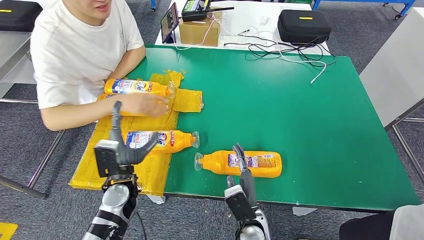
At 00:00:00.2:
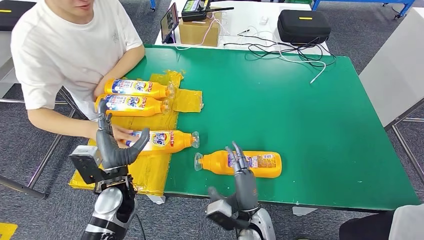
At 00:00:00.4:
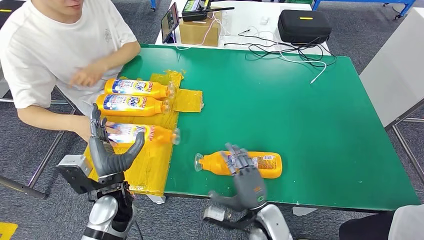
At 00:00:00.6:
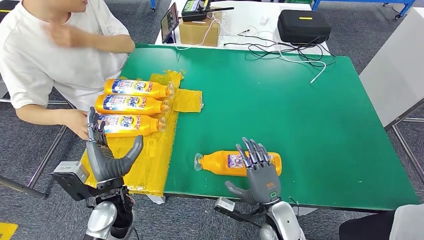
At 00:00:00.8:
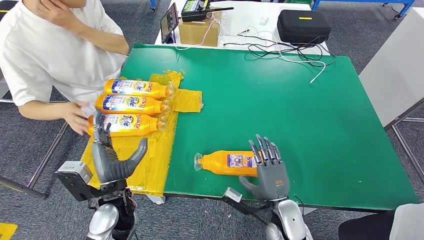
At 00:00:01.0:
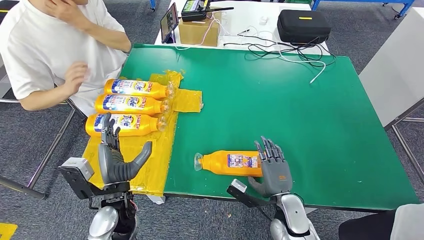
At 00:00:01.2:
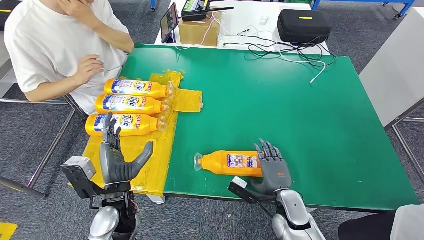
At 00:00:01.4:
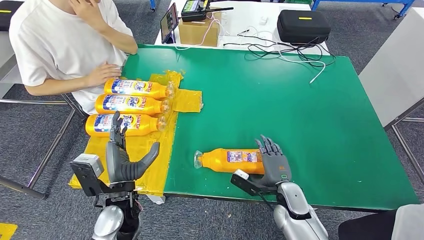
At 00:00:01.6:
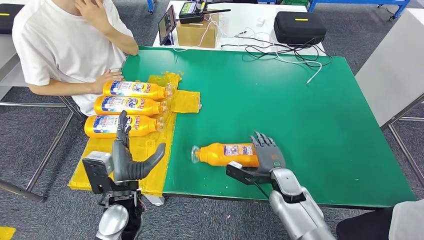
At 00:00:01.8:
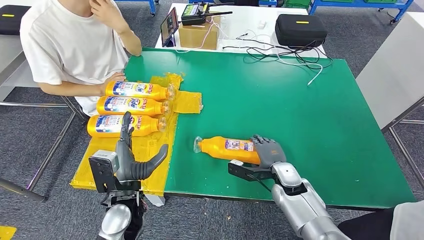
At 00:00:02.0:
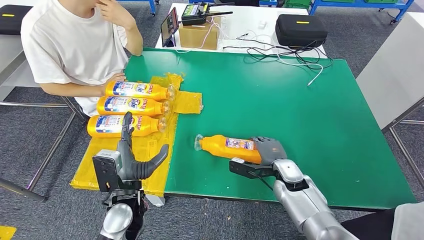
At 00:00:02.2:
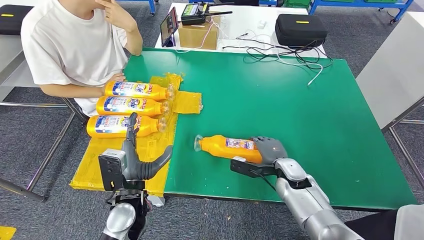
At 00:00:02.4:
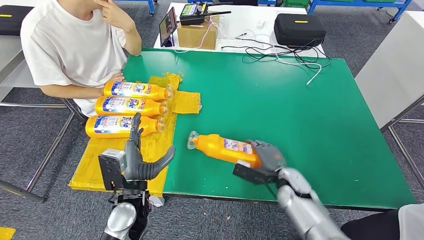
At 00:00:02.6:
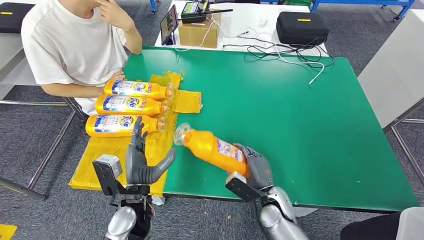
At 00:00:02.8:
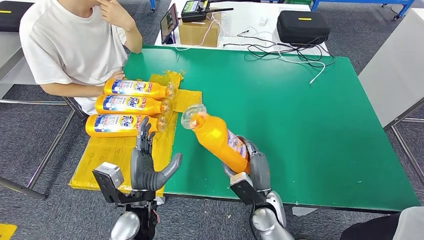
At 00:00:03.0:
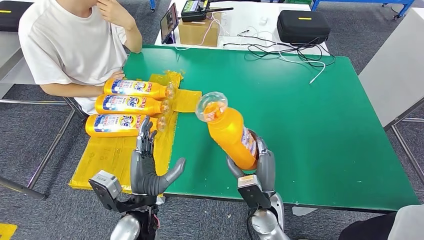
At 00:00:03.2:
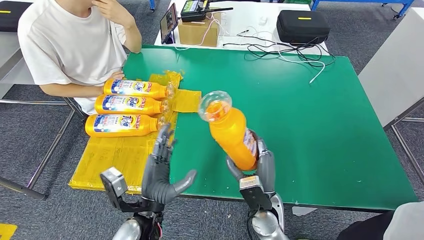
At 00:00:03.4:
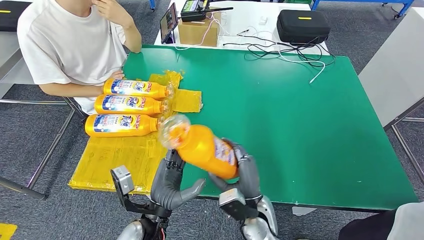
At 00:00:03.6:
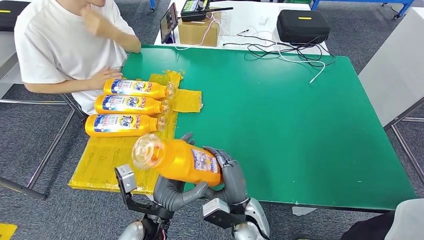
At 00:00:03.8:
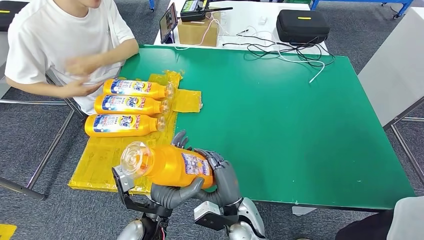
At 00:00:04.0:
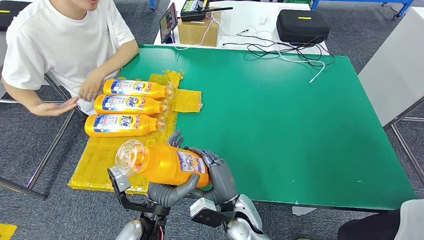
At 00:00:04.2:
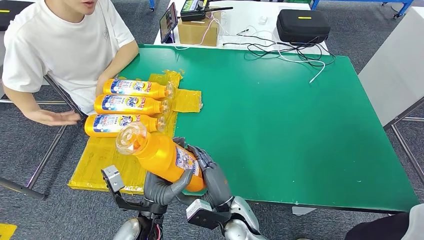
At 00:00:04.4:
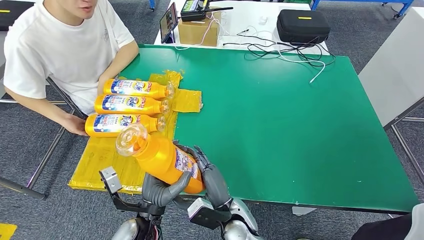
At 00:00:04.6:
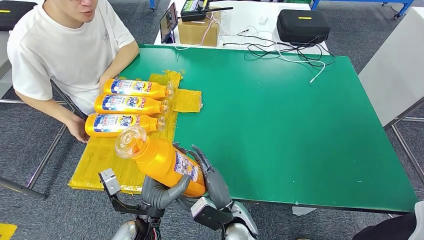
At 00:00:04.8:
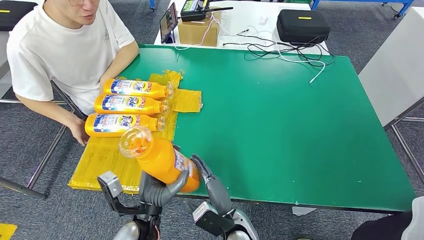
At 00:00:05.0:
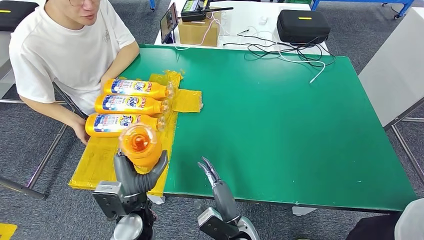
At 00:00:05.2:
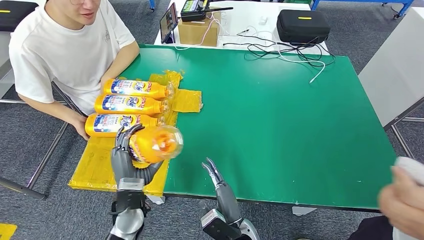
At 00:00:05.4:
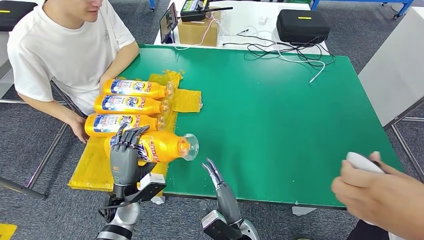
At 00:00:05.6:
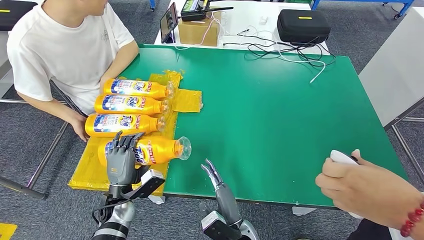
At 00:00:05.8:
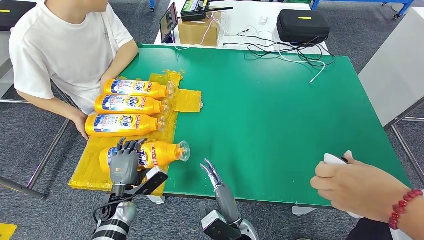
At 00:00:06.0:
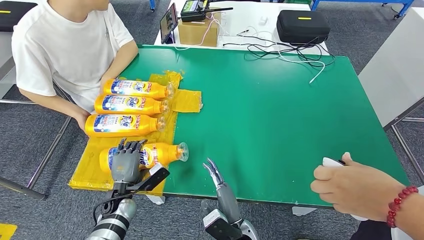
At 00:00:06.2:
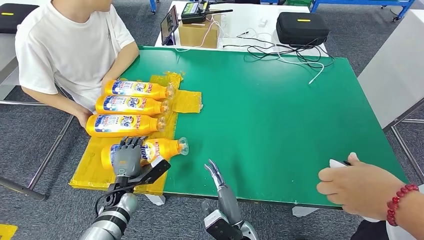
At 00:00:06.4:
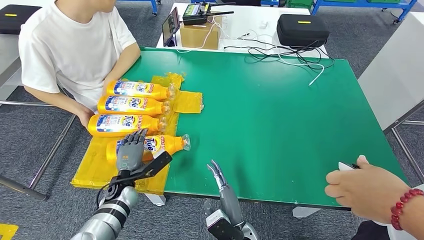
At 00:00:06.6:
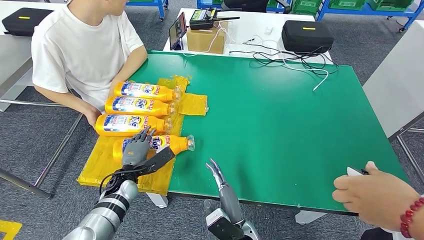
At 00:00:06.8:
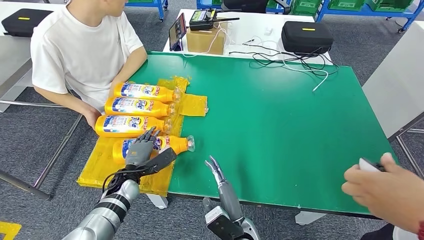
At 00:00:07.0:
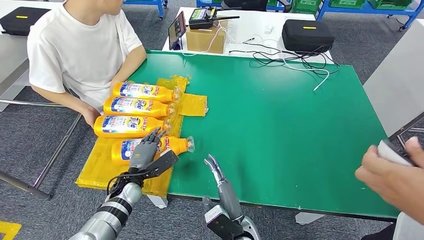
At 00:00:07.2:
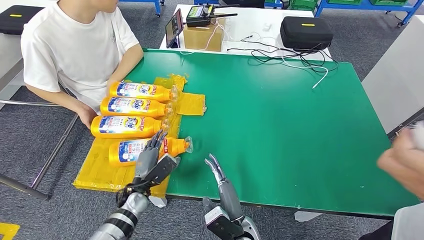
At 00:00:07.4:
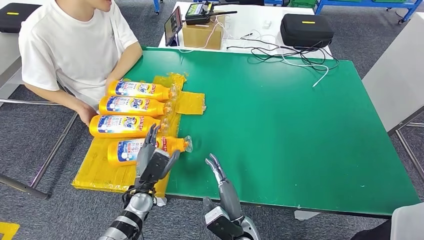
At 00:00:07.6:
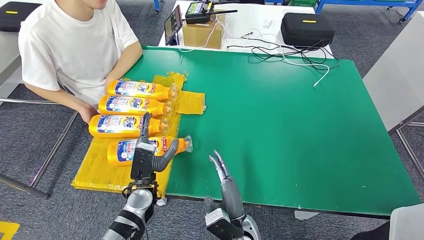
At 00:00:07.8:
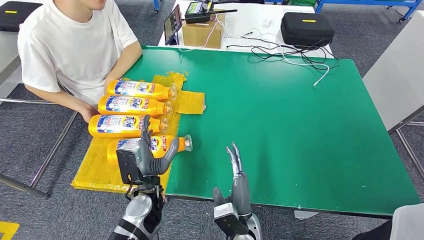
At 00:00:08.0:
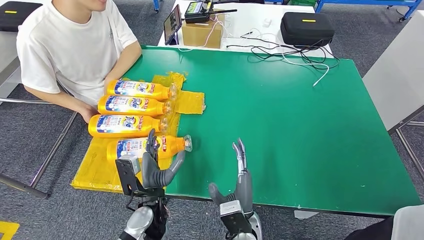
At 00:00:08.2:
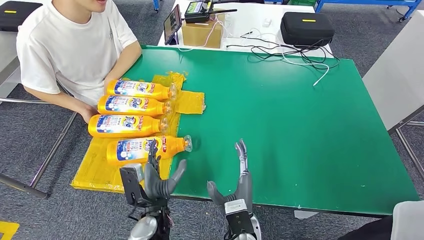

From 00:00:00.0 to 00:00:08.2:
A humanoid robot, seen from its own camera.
Step, from 00:00:01.4 to 00:00:04.0: Pick up the bottle from the table.
Step, from 00:00:04.2 to 00:00:08.2: Flip the bottle to face forward.
